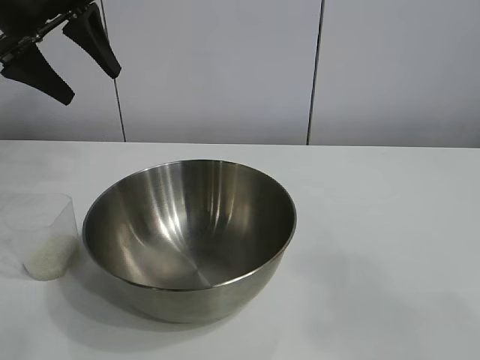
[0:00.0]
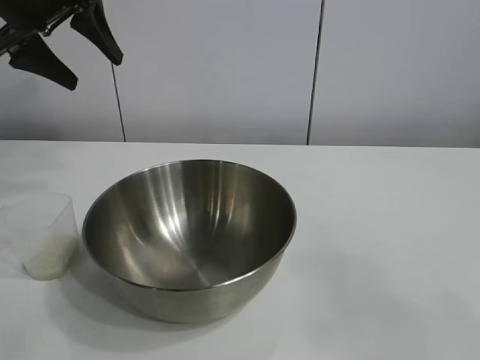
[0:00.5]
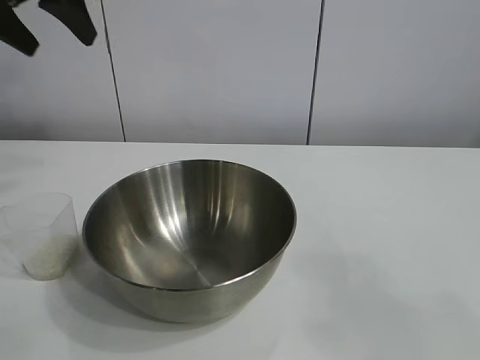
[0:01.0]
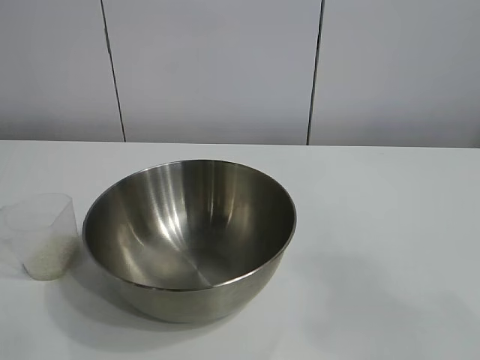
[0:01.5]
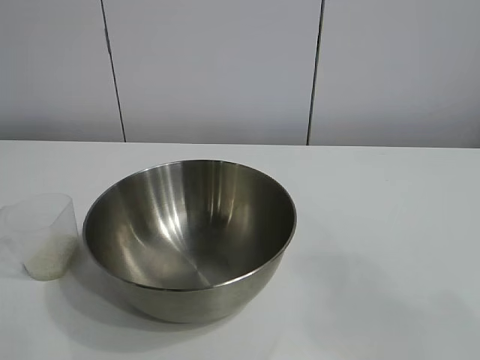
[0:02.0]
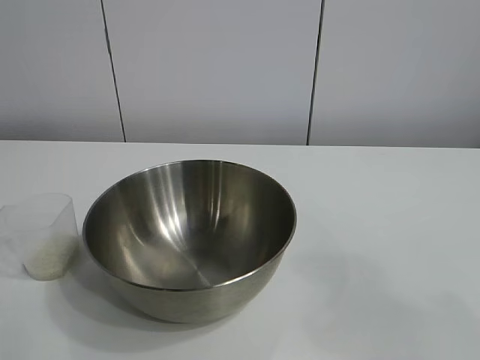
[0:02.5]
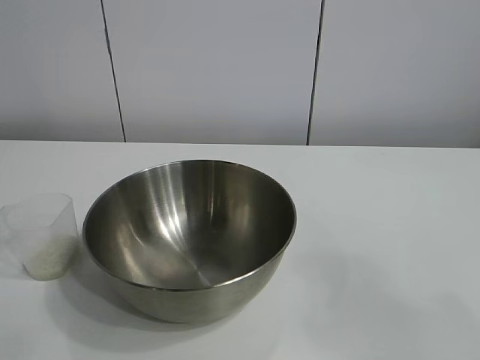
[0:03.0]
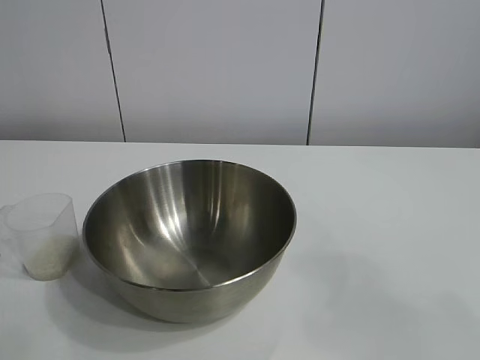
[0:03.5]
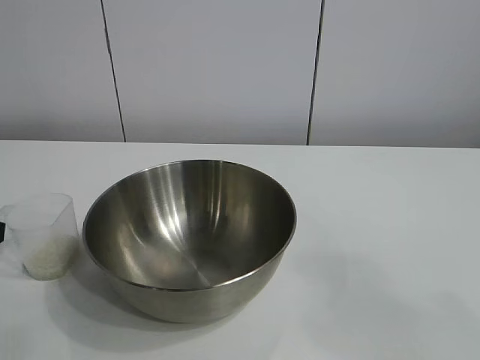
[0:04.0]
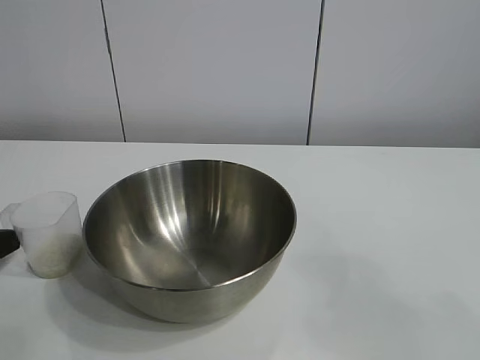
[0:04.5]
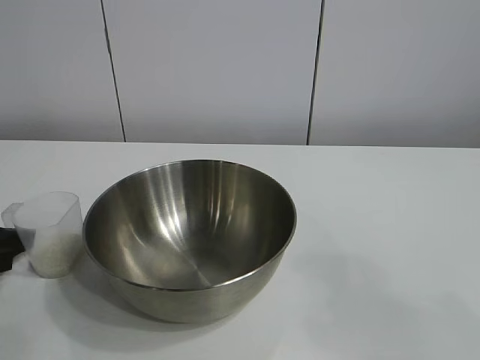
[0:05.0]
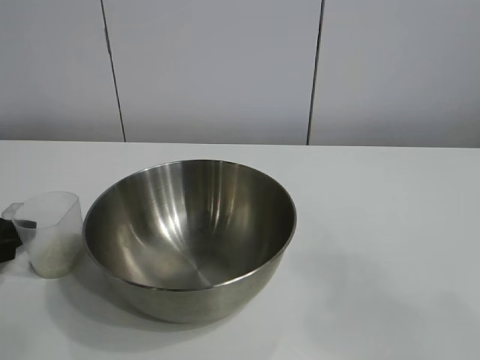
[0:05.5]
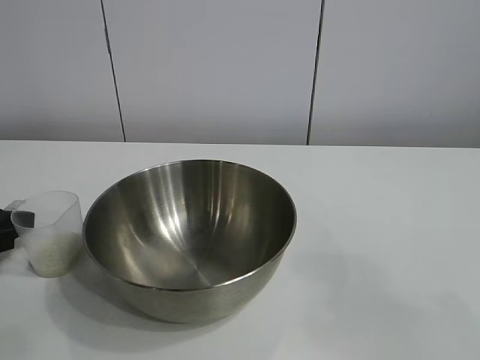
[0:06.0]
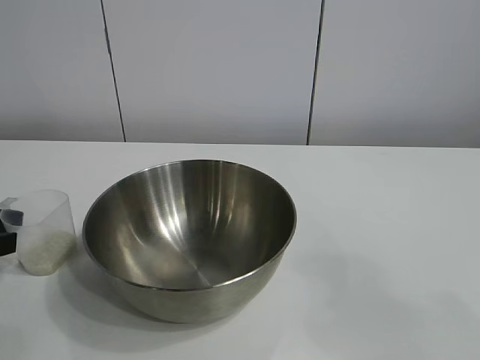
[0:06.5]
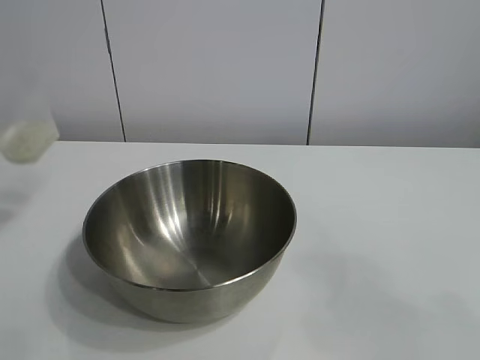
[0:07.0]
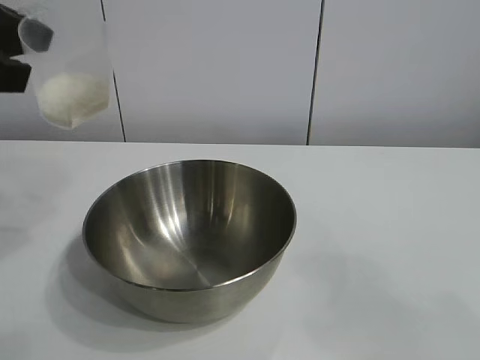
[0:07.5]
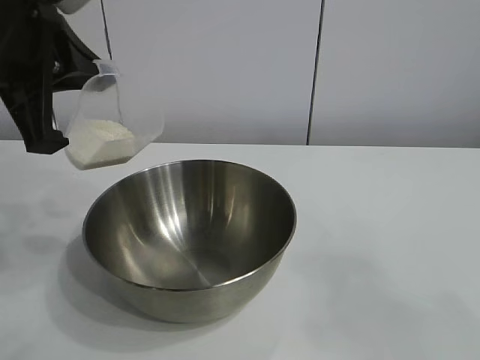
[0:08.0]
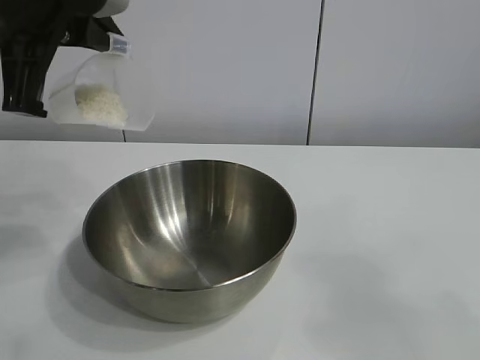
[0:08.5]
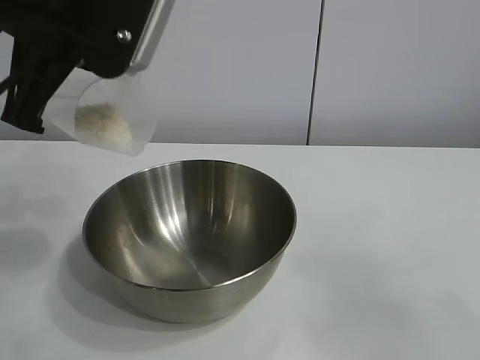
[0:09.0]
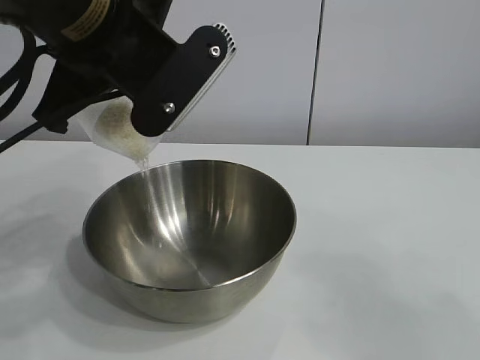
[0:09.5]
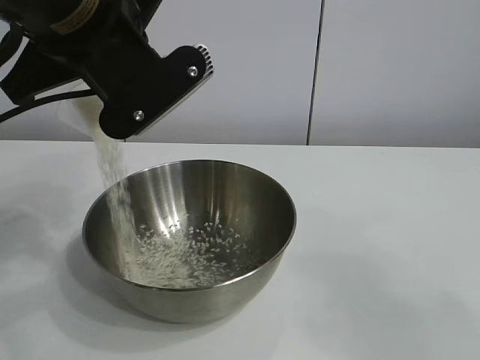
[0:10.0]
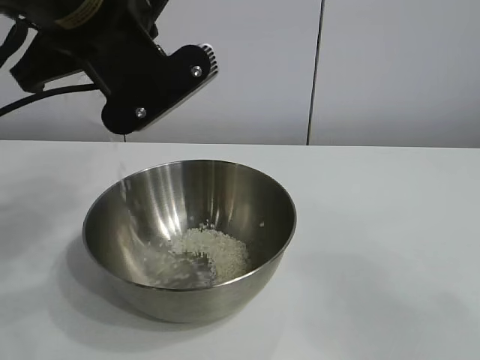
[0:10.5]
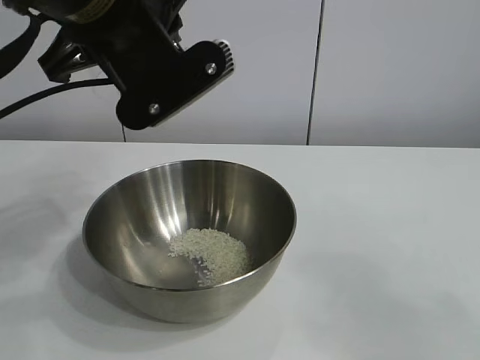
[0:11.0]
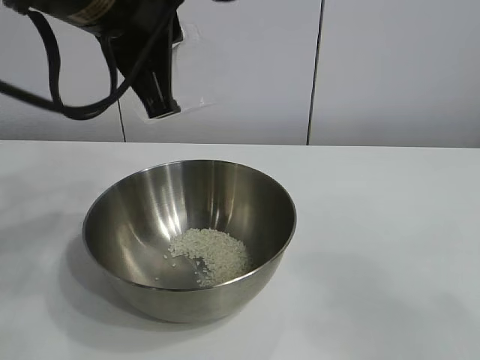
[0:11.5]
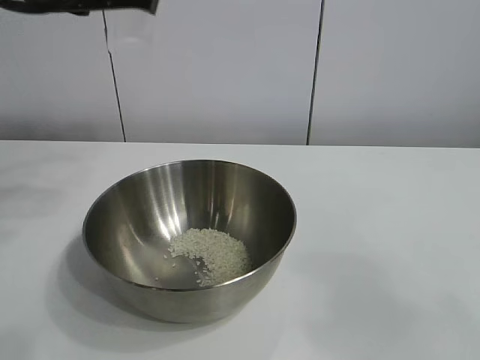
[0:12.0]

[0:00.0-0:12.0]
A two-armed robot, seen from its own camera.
Task of the whole recording: the right gripper grasp the rice container and place it in the center of the table, the left gripper grasp the rice scoop and pour the rice into the rice container.
Step, 0:00.0 to 0:06.0: Grasp the cup with rice in it with left gripper.
Step, 0:07.0 to 0:10.5: Pour the rice from the cup into the bowl with the left gripper.

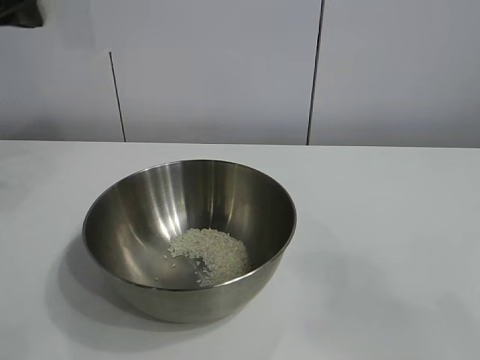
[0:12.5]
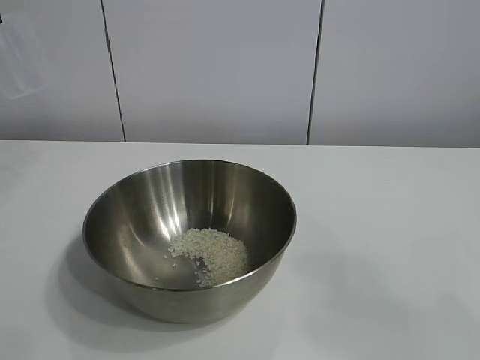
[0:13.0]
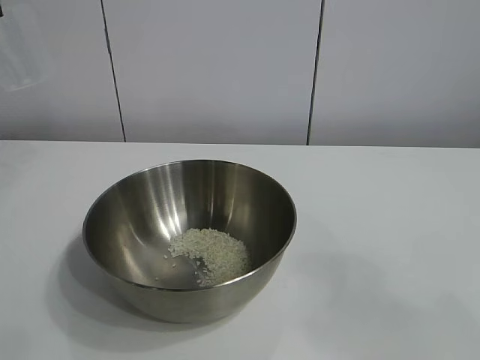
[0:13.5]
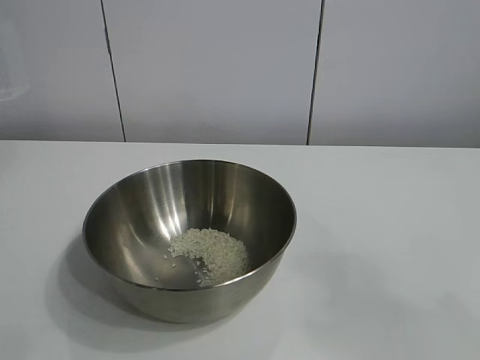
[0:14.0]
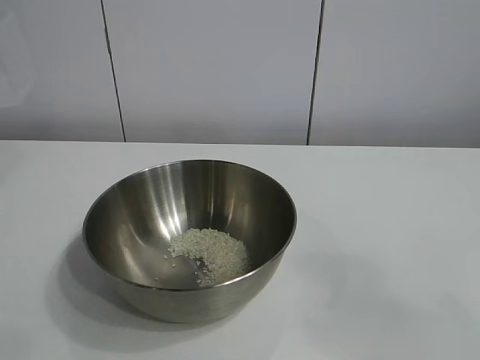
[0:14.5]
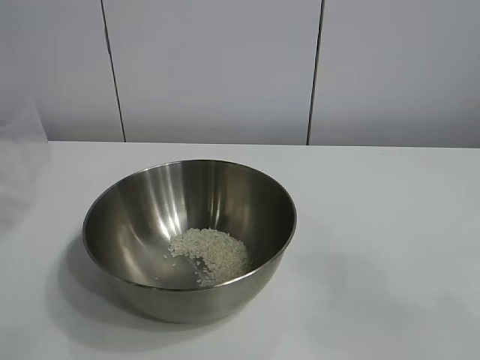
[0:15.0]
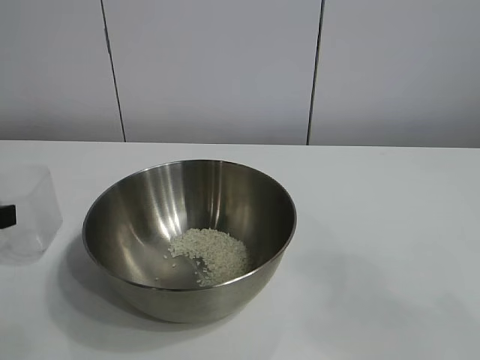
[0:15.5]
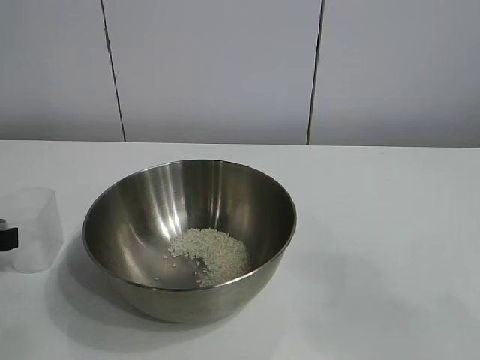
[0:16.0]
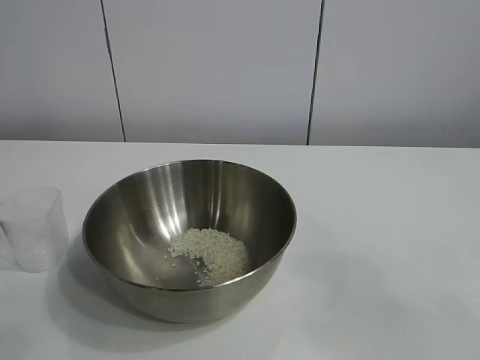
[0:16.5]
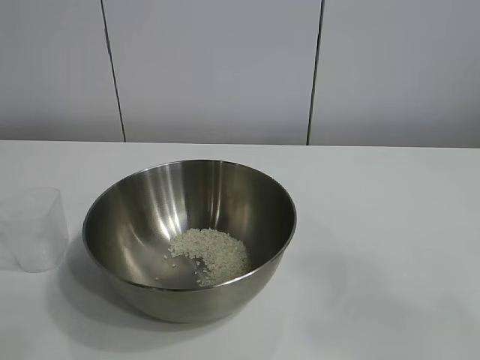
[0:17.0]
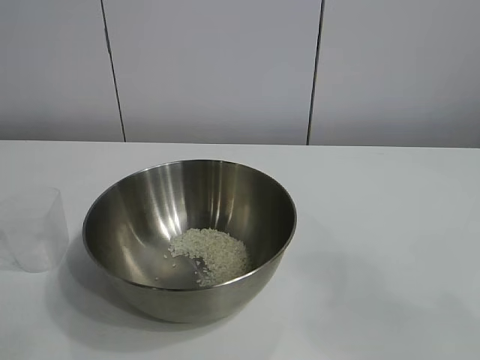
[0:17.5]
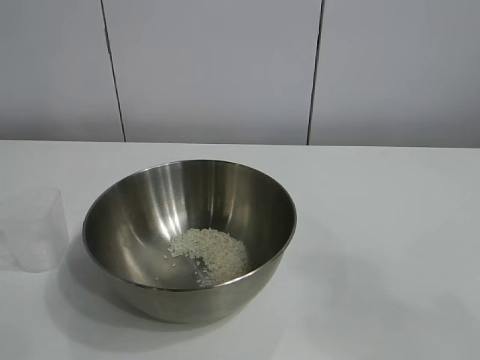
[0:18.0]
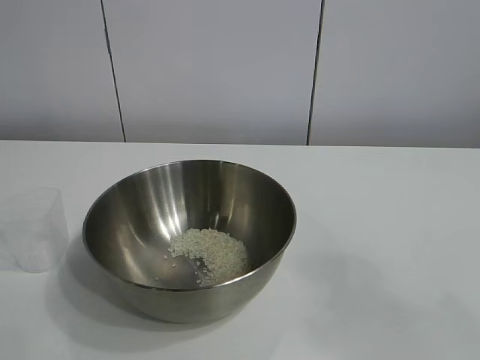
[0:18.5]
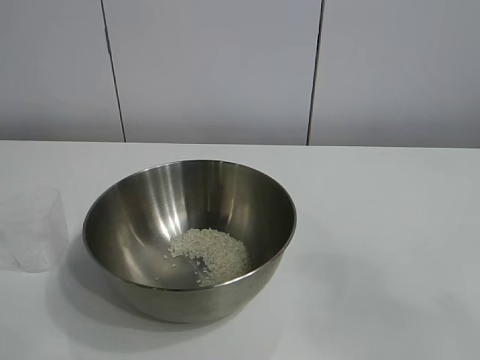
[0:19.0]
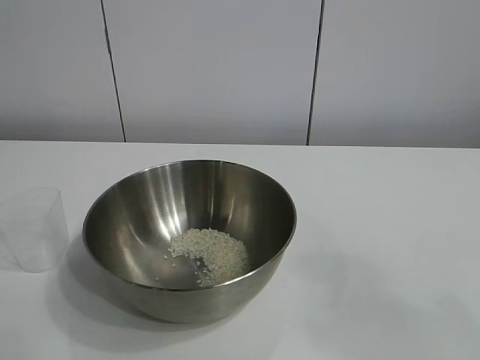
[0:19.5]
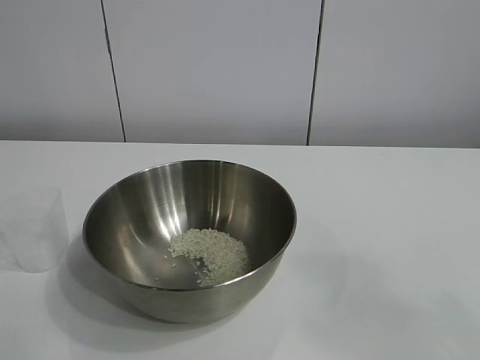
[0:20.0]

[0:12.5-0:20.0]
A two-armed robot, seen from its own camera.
Task of the whole recording: the right gripper grasp the rice container and place it in the center of the table, the left gripper grasp the rice scoop and pour the rice into the rice container.
Step, 0:12.5 to 0:16.5: Place the cup on the table with the left gripper.
